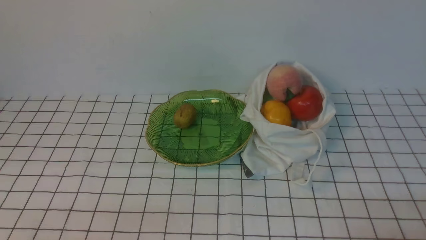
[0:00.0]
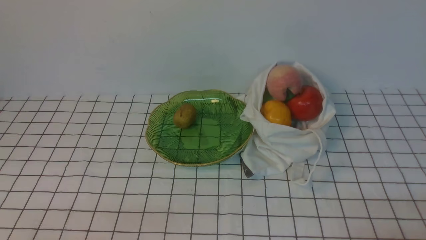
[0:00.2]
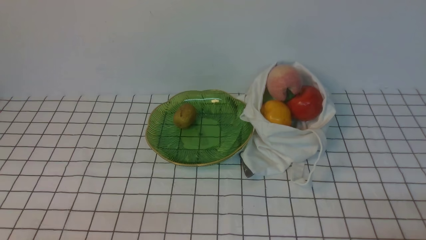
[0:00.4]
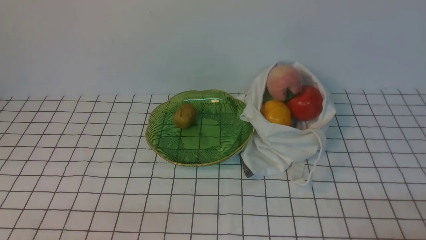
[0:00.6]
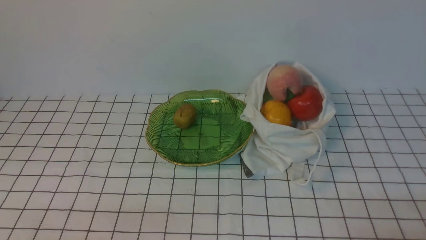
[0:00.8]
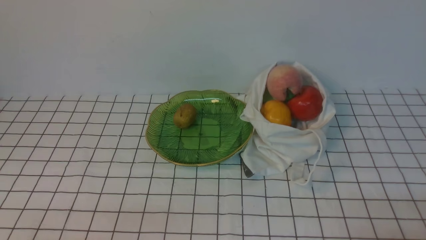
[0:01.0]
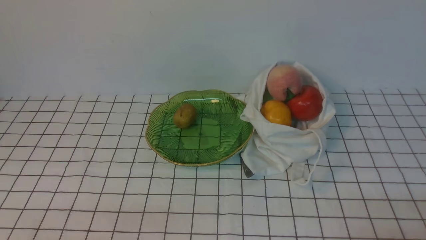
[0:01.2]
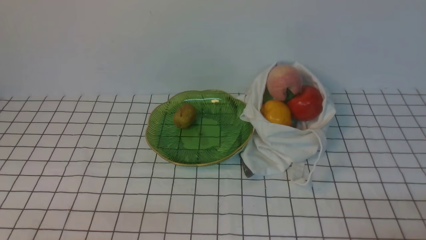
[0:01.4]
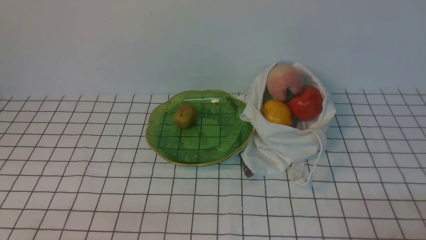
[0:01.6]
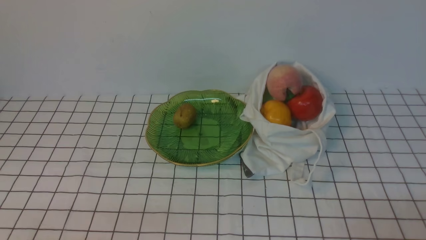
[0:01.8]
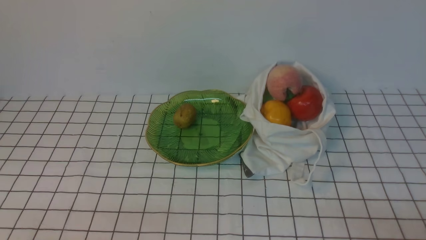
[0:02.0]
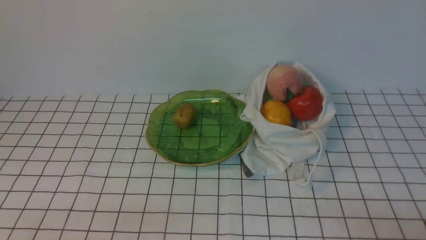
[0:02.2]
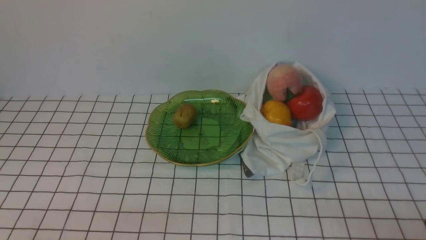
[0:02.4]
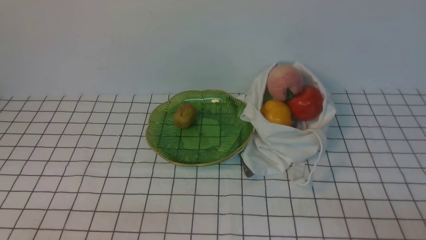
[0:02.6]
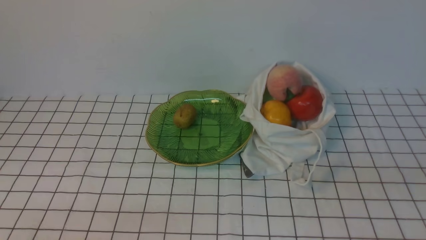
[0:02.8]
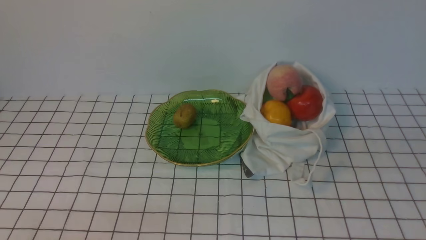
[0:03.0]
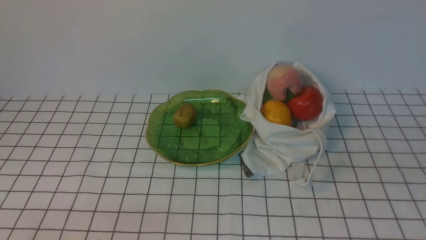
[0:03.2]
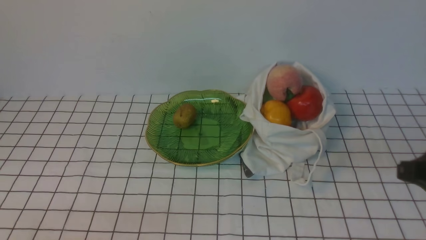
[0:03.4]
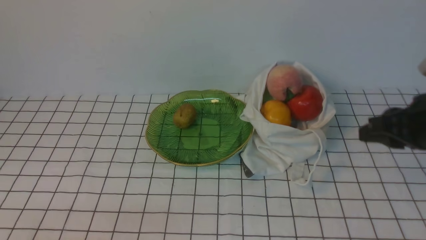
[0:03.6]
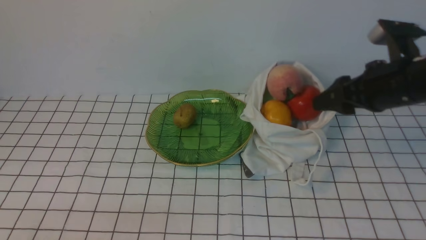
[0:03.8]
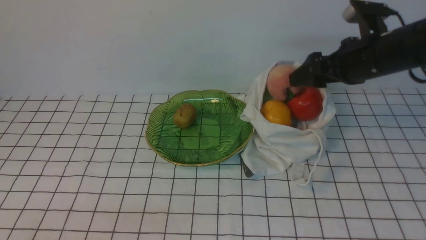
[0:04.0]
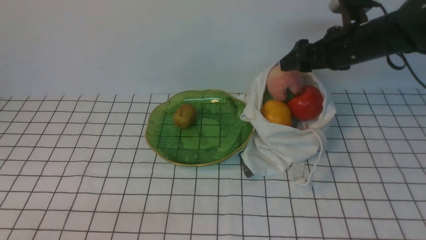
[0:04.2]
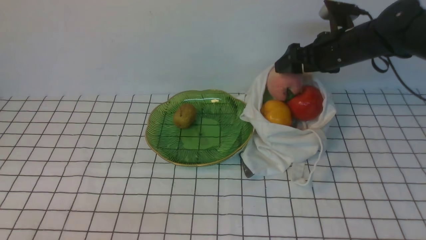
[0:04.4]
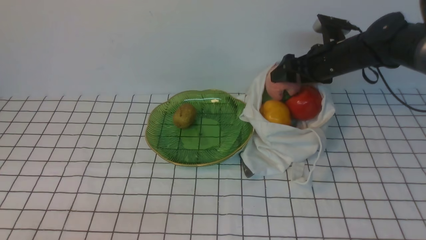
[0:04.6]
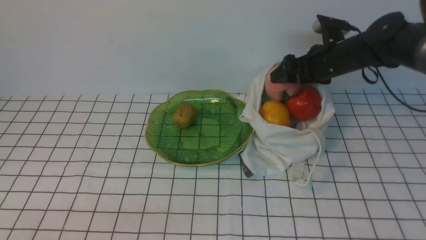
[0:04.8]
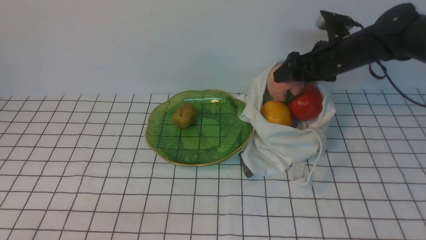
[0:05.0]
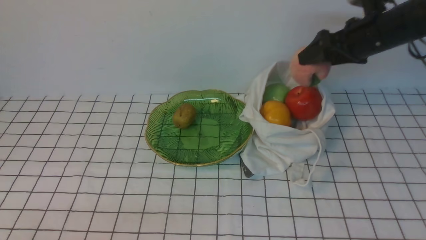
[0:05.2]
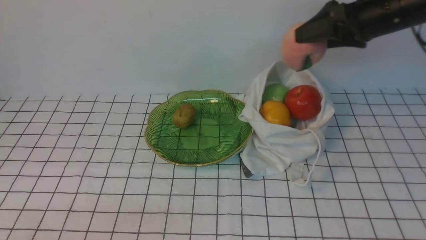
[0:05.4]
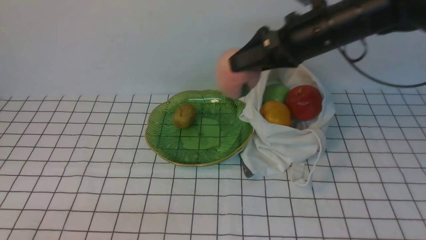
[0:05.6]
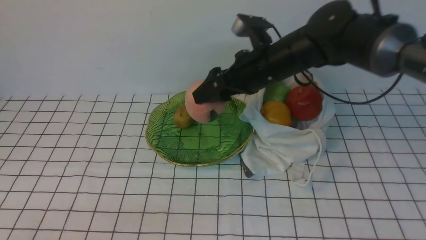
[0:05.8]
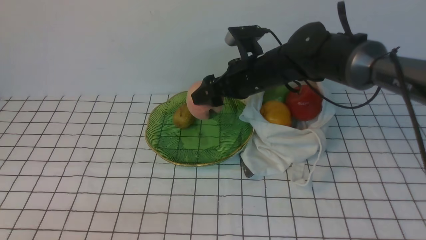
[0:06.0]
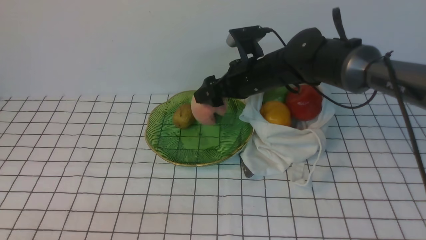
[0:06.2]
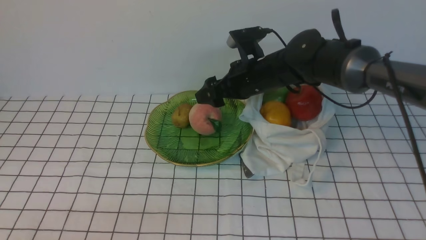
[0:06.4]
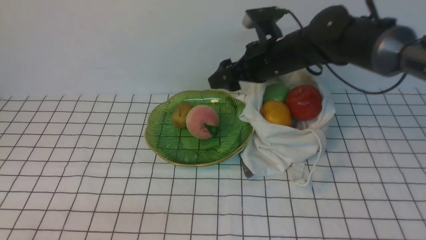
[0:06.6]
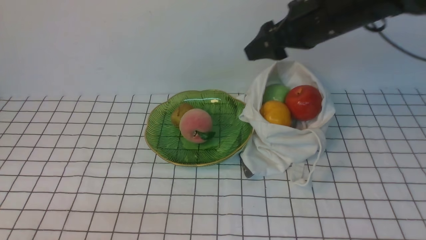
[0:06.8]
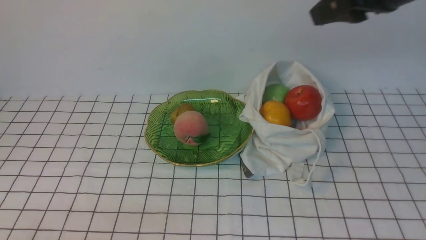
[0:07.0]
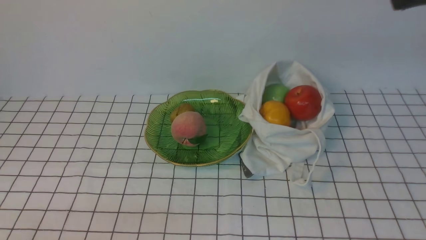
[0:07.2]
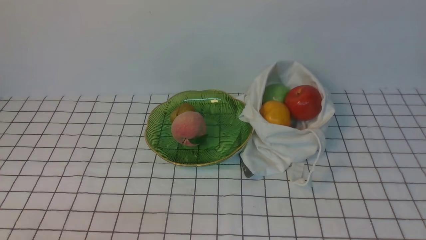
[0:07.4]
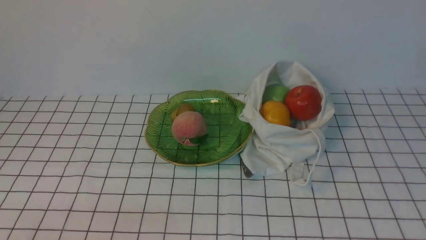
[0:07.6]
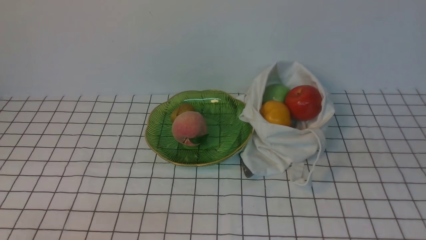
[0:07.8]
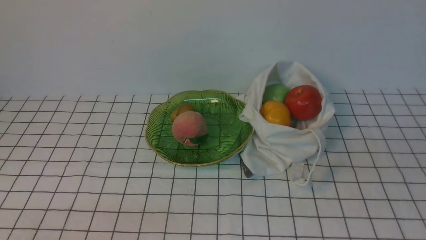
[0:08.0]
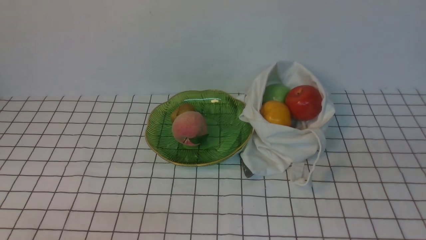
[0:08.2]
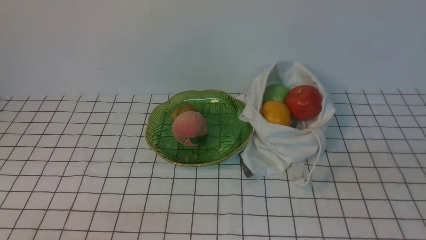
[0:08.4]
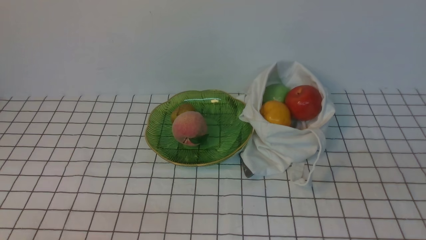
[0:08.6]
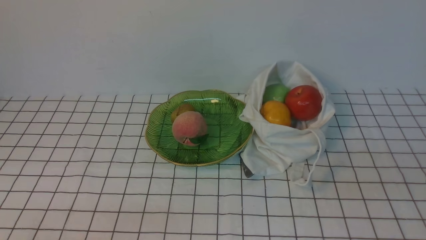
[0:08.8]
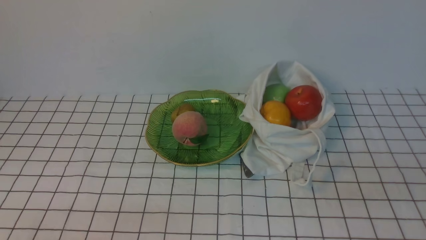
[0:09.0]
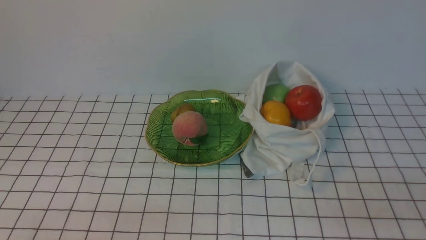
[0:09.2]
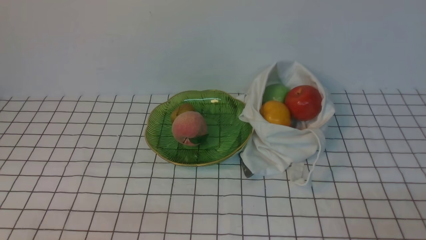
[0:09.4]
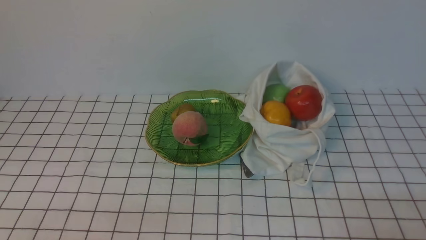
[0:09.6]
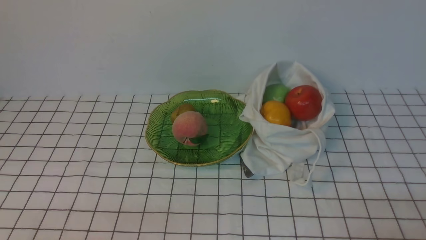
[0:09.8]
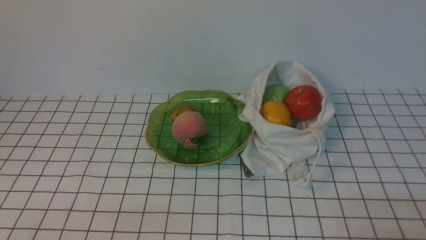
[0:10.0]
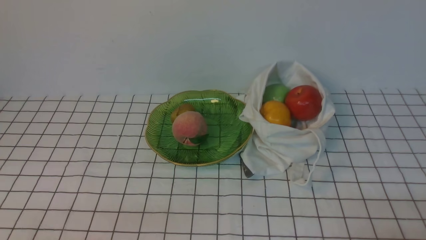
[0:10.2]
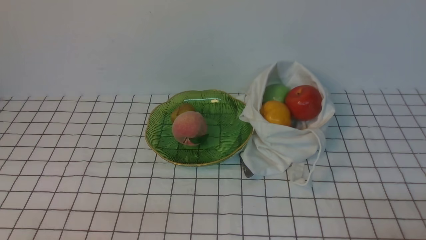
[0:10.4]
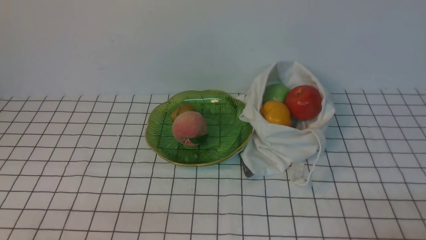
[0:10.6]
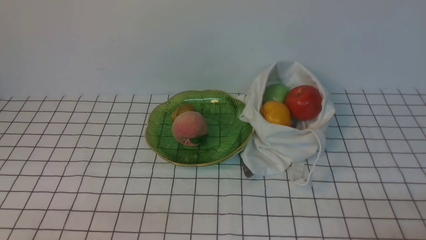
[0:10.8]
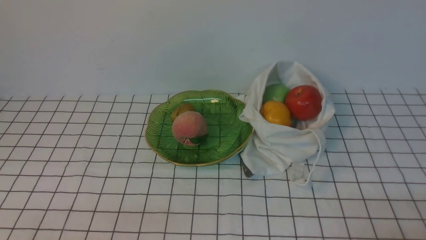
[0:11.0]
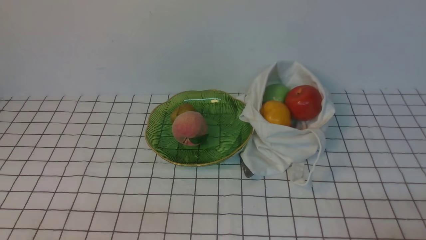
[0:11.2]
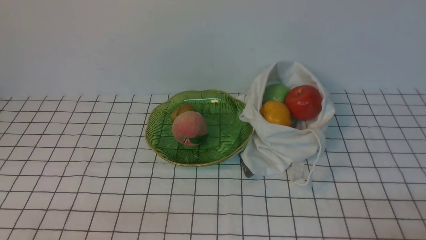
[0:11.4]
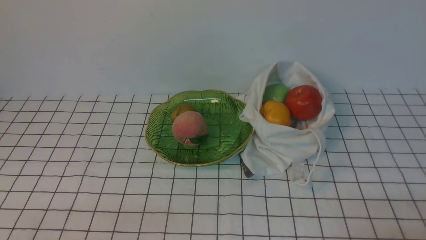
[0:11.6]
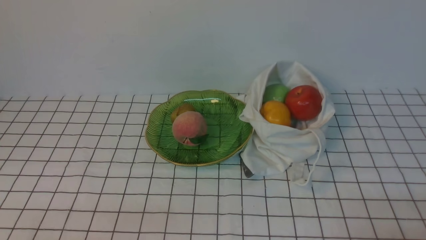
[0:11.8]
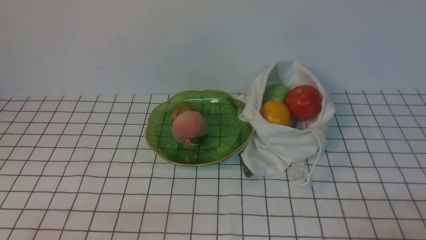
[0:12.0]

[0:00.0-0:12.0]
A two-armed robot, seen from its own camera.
Step, 0:00.0 to 0:04.8: use the right arm to grab a peach from the bag.
Step, 0:05.0 to 0:06.2: use the right arm to put the peach into the empty plate on the left.
0:00.0 to 0:01.6: Both grippers stay put.
0:03.0 to 0:04.4: The right gripper shifts about 40 cm forward, and opens its fingers.
0:04.4 to 0:06.0: The right gripper is displaced to the left by about 15 cm.
0:06.0 to 0:07.6: The right gripper heads backward, to the right and upward, covering some 40 cm, and closes.
0:10.4 to 0:12.0: Neither gripper changes place.
